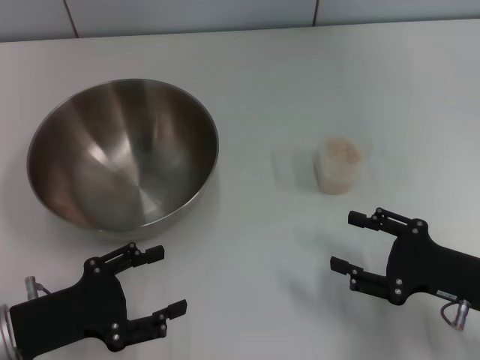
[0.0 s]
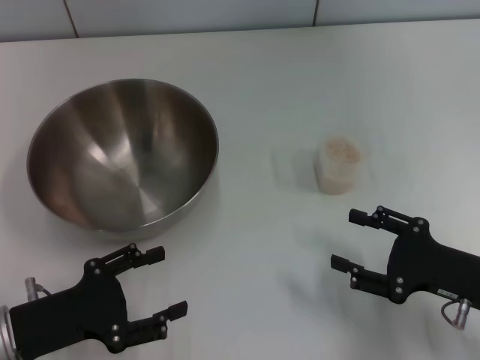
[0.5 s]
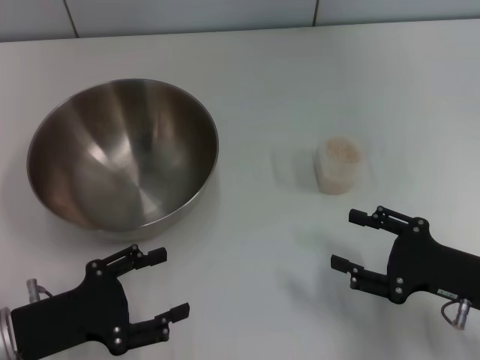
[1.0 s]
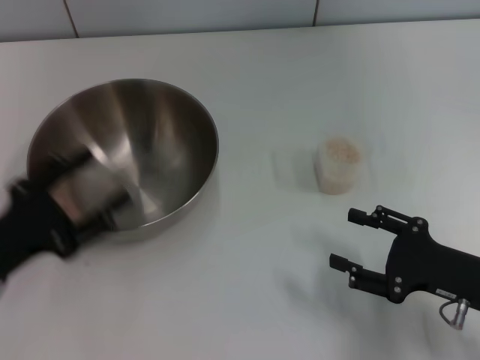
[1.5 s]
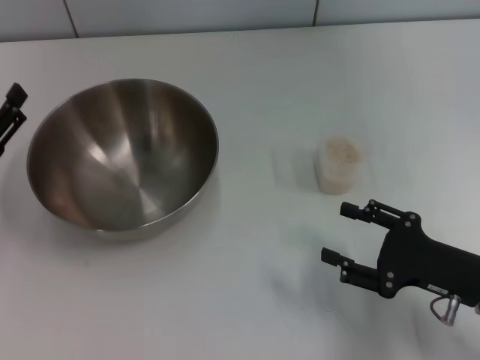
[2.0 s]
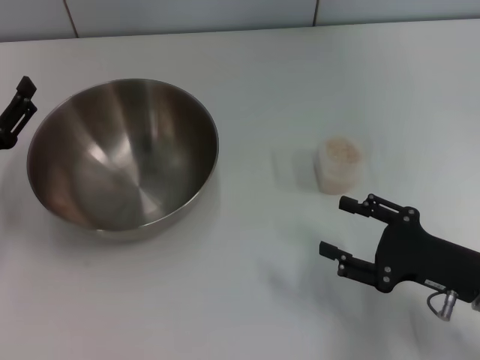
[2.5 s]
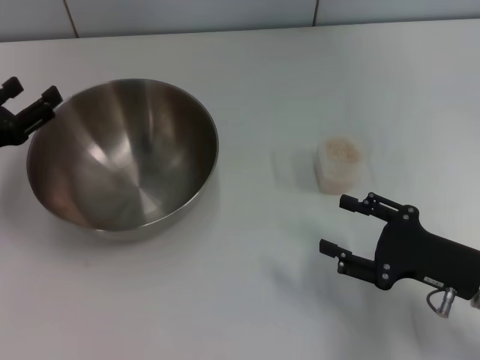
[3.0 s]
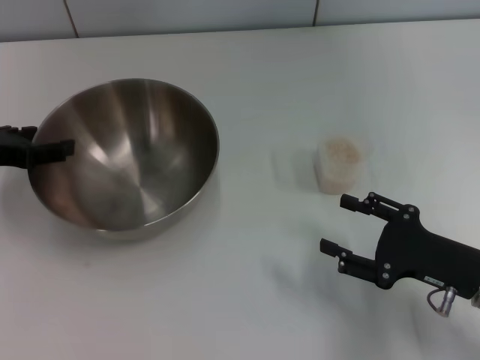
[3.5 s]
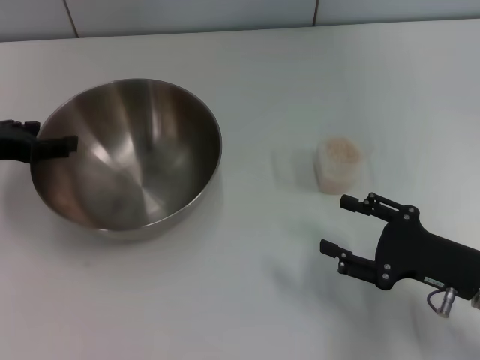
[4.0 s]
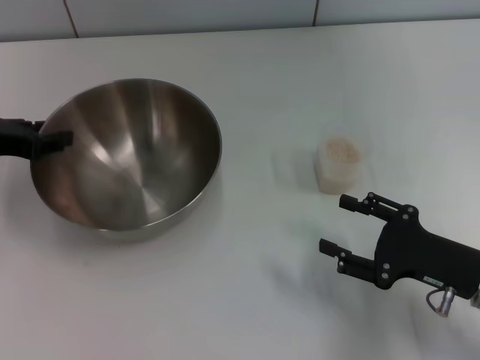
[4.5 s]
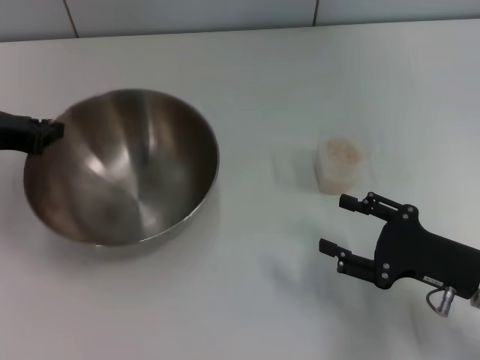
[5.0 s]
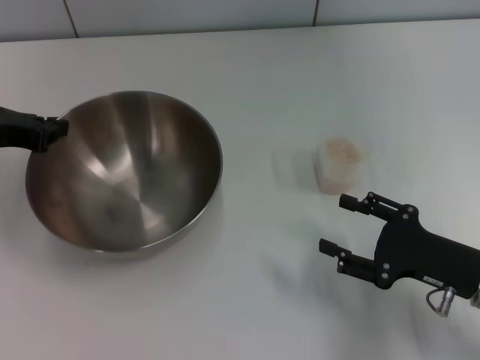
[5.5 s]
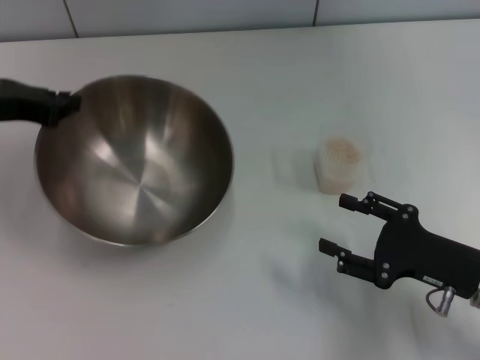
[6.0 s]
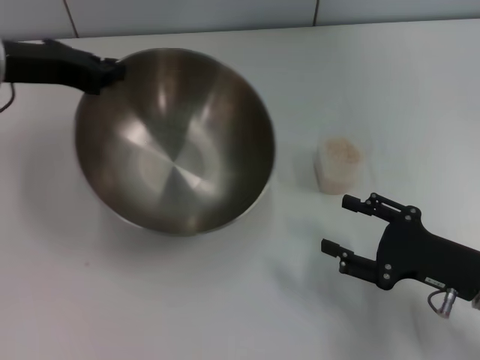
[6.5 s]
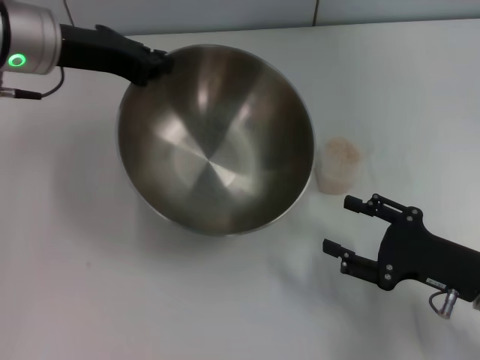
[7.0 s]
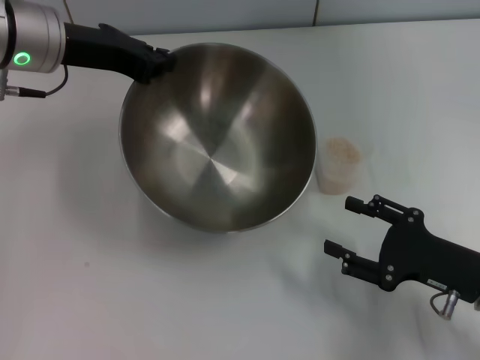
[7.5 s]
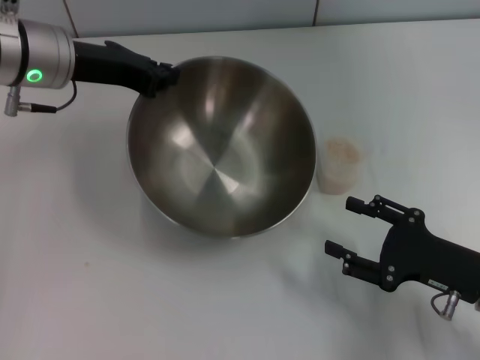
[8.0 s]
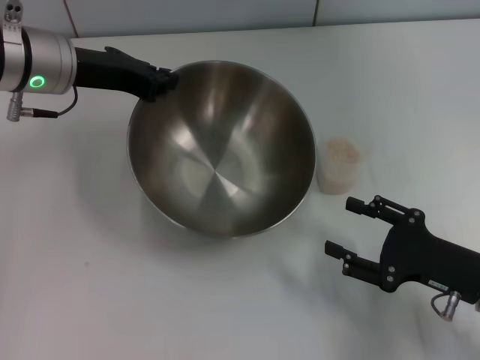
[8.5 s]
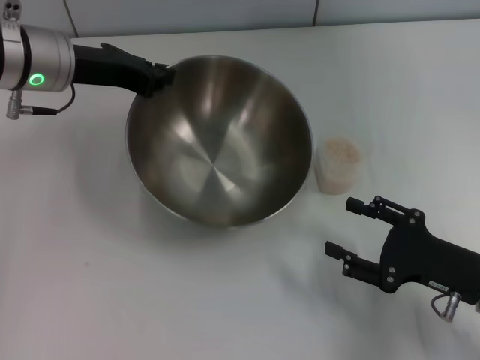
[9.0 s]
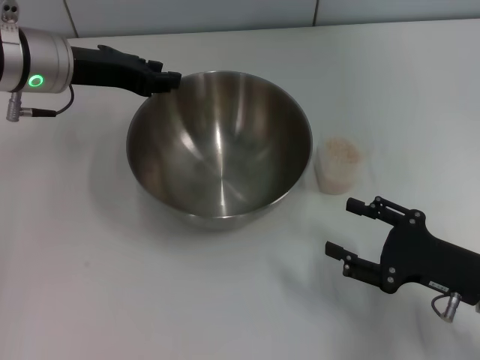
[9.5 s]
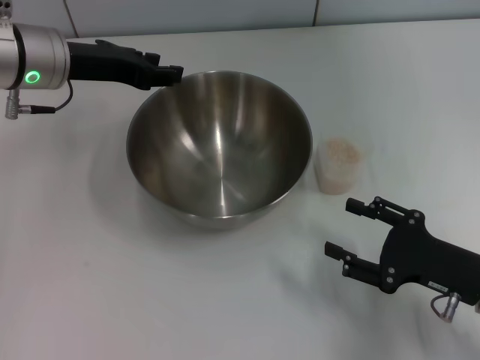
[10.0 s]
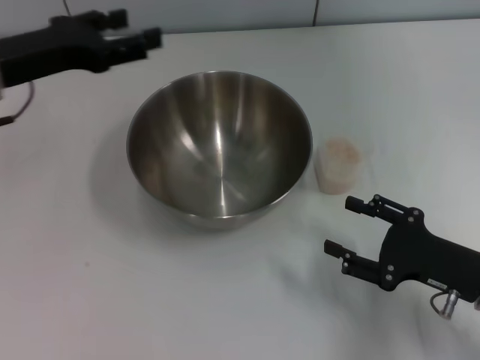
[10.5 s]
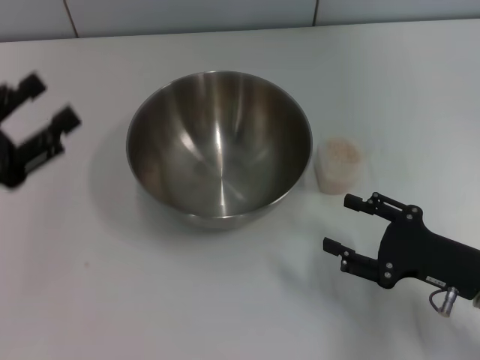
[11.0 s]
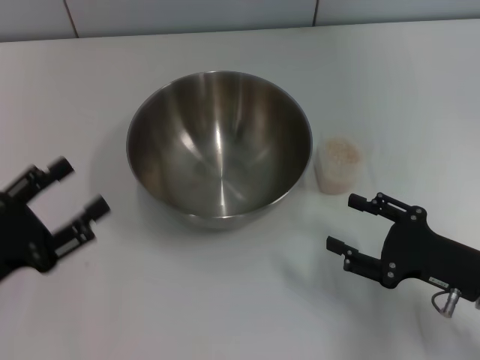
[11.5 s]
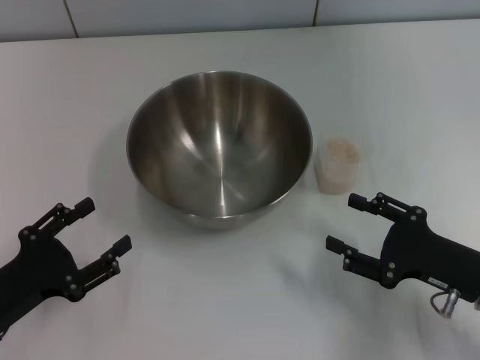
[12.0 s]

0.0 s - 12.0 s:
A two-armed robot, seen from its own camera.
Task of the whole recording: Place the bowl in the middle of the table with one hand and pour the rice from the grain cup into it with the other hand.
Step, 0.0 s - 6.0 s: Pick up the bowl with the left gripper.
Step, 6.5 s - 10.0 s: Place the bowl in the center of view with the left gripper.
0.0 s - 2.0 s: The left gripper heads forward and to the left, covering about 10 cm.
2.0 s - 4.0 s: The left gripper is displaced forward and upward by approximately 10 cm.
4.0 s - 6.0 s: The left gripper closes.
6.0 s - 8.0 s: The left gripper moves to the right, roughly 10 cm.
8.0 s - 10.0 s: The left gripper opens.
10.0 s - 12.0 s: The left gripper moves backward and downward, some 25 cm, and opens its fingers.

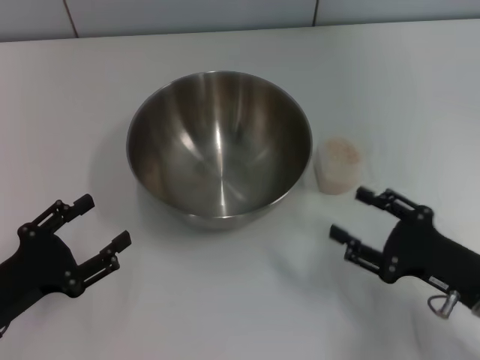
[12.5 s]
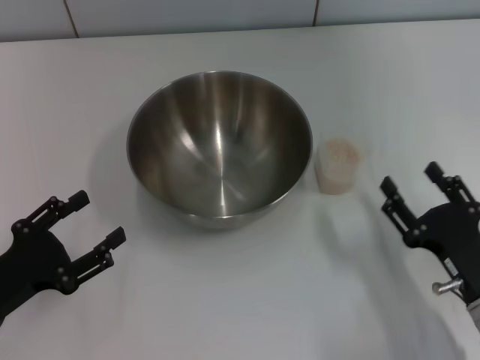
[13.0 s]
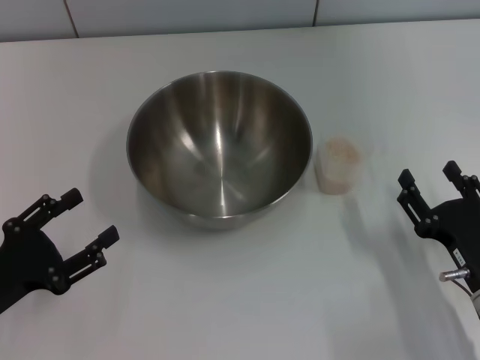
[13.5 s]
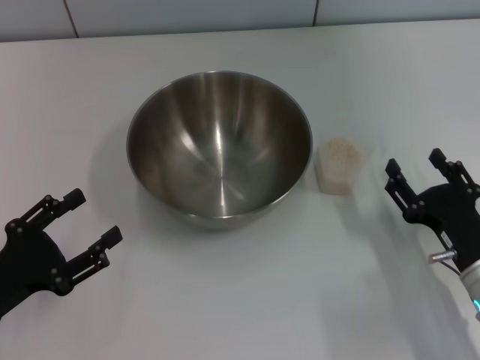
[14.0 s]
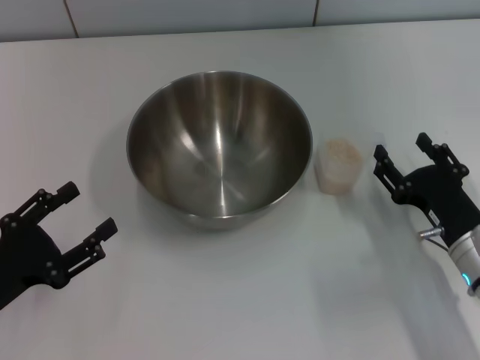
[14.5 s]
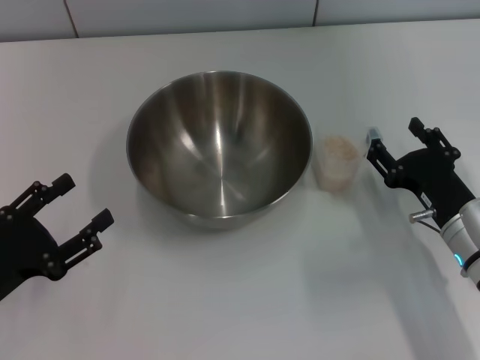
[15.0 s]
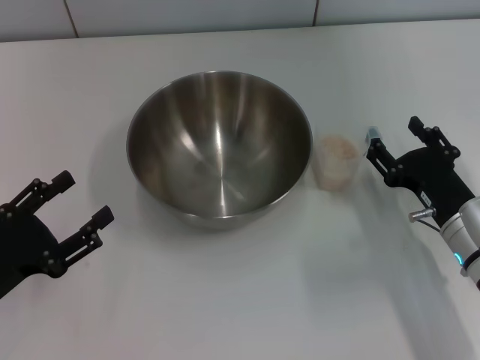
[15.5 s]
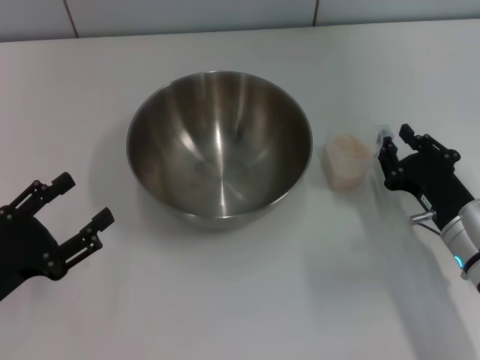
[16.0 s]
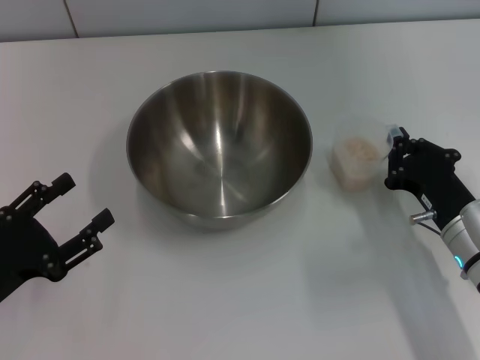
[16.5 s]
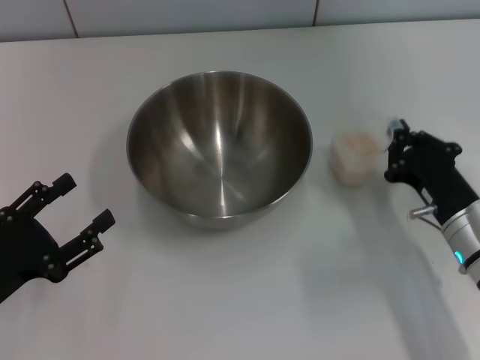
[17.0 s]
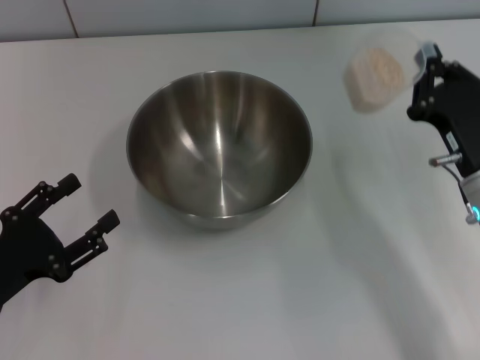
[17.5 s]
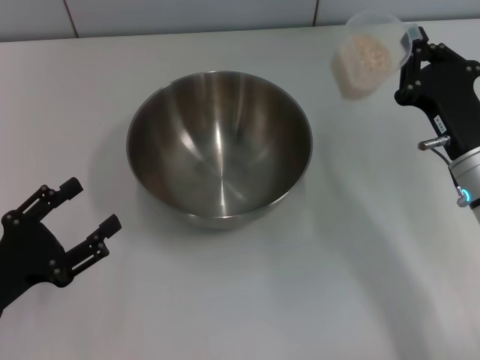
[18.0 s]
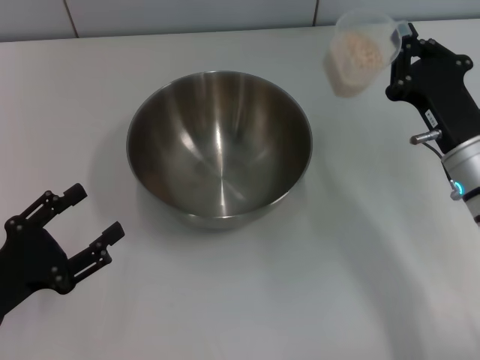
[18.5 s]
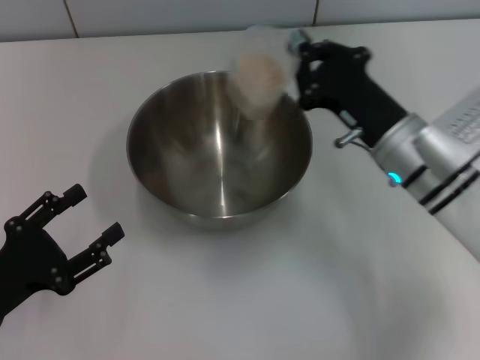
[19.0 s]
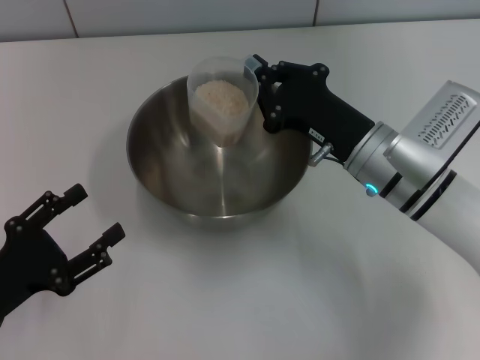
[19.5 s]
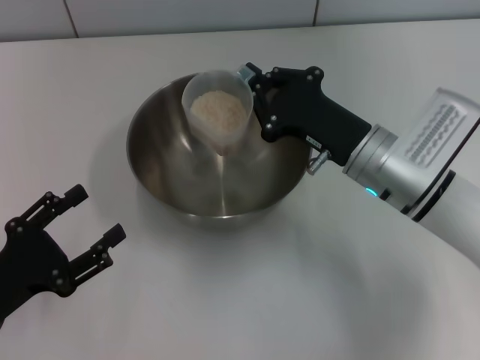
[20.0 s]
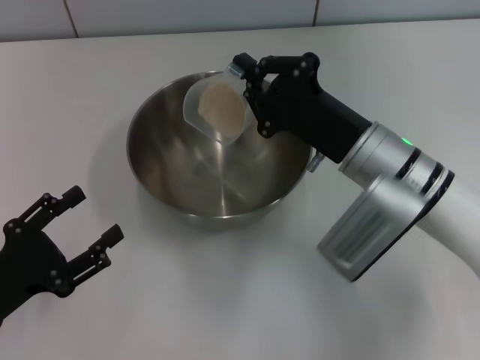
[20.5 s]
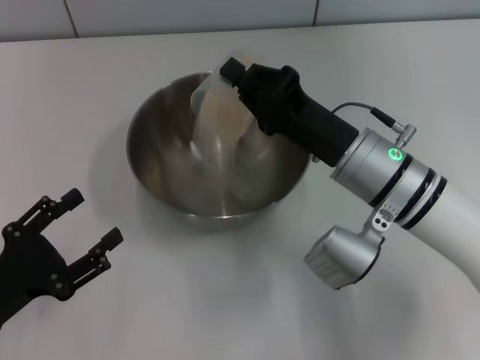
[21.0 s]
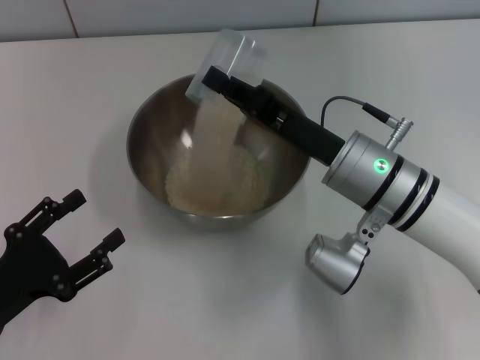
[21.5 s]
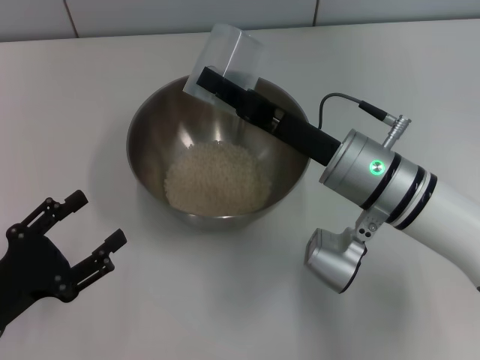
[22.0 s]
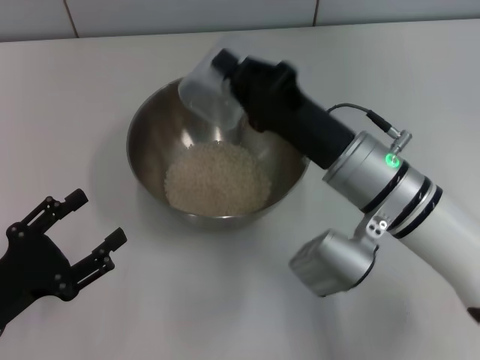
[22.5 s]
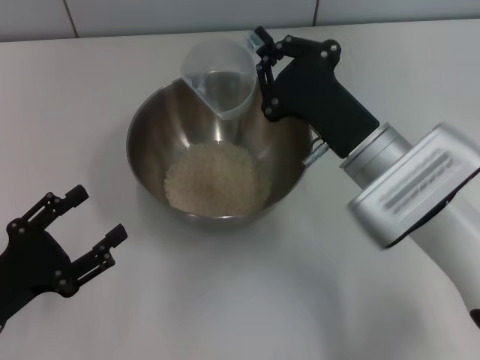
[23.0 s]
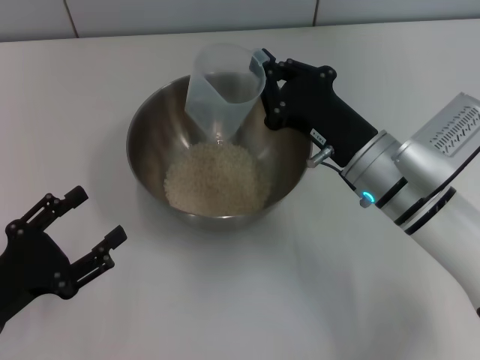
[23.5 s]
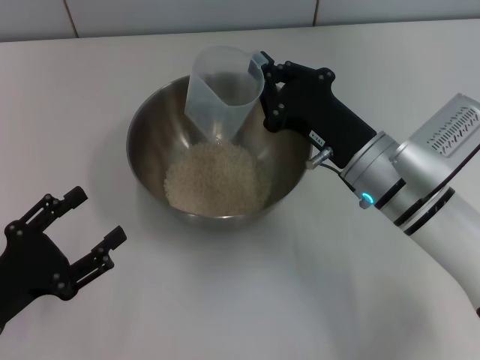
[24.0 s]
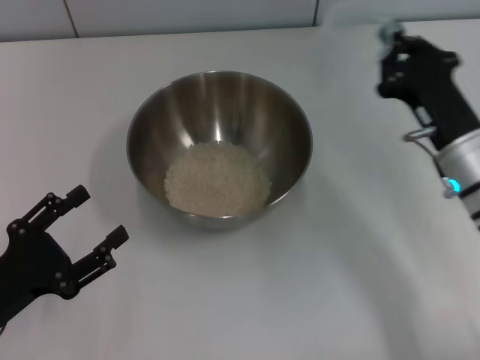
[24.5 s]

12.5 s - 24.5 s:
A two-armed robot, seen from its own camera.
Task of the whole recording: Place the bowl in the middle of the table with one hand and pour the rice from the grain cup into it with the other hand.
Step, 12.5 s - 17.5 s: Pick up the cup with rice in it with the right gripper.
14.5 s - 16.5 s: The right gripper closes.
16.5 s - 18.5 s: The right gripper is displaced upward by roughly 5 cm.
18.5 s - 20.5 s: The right gripper is displaced to the left by roughly 10 cm.
22.5 s - 24.5 s: The right gripper heads to the right, covering approximately 10 cm.

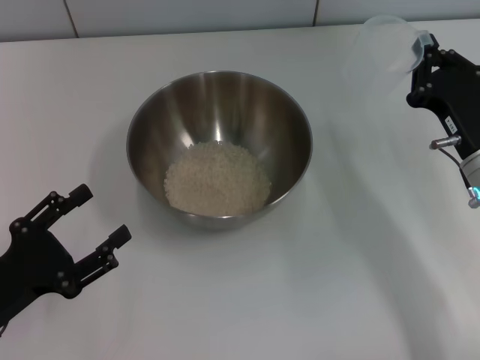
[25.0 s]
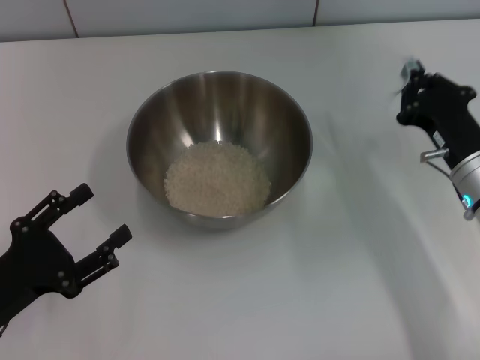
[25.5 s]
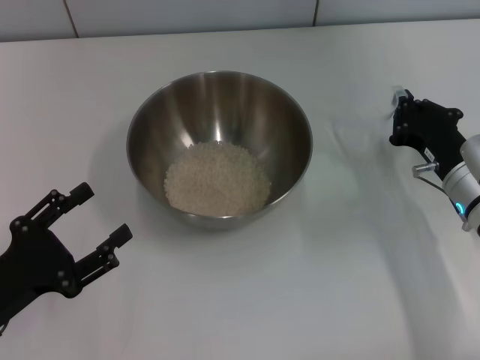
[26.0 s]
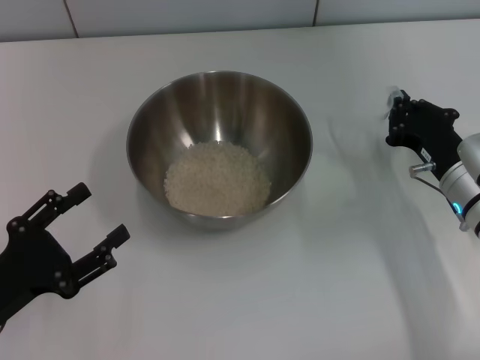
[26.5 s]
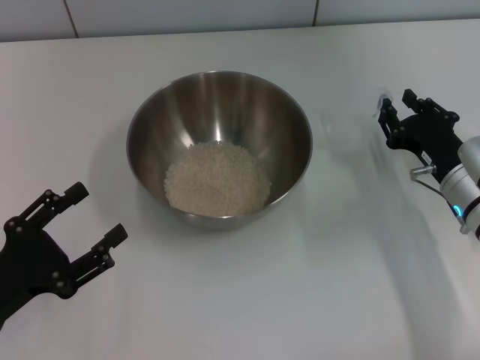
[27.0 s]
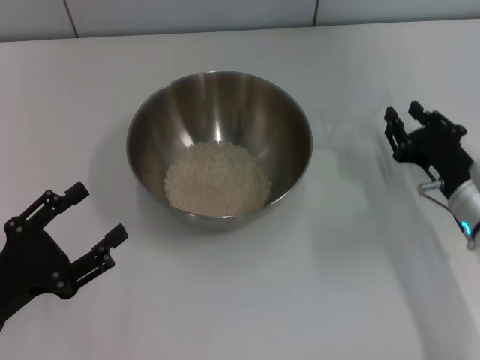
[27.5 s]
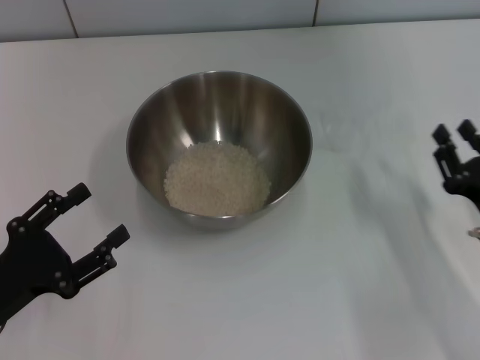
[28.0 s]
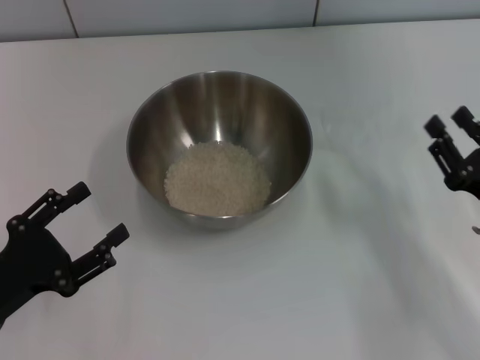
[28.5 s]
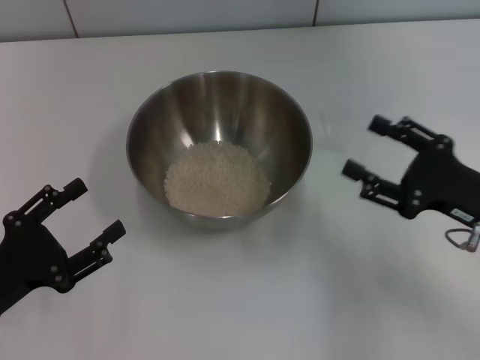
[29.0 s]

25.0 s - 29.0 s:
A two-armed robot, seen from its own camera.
Task of the whole recording: Place the bowl in the middle of the table with one hand and pour the rice from the grain cup into it with the other hand.
Step, 25.0 s - 28.5 s: Place the cup on the table with the right gripper.
25.0 s - 27.0 s: The right gripper opens.
27.0 s - 29.0 s: The right gripper shifts roughly 5 cm backward, and opens.
